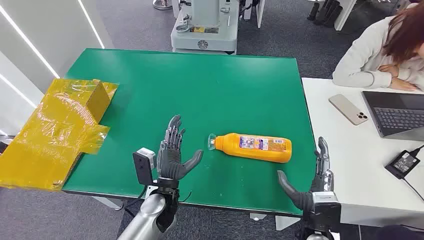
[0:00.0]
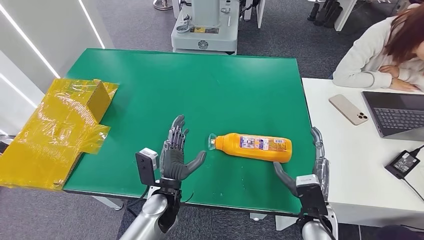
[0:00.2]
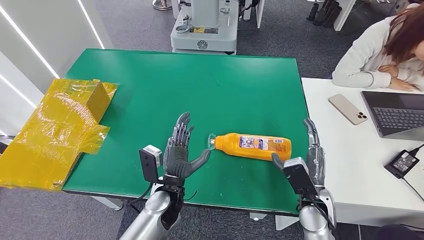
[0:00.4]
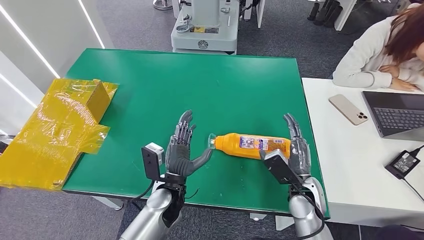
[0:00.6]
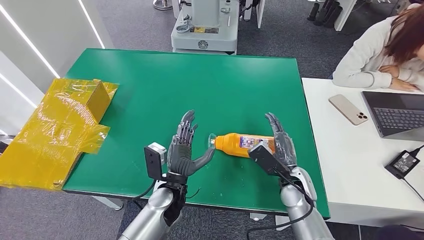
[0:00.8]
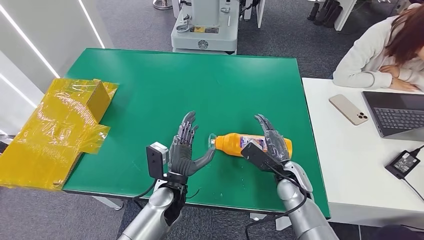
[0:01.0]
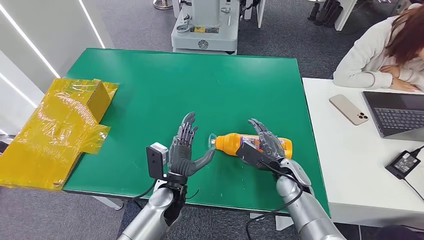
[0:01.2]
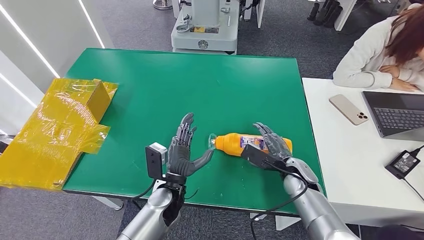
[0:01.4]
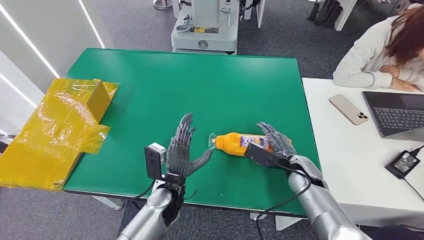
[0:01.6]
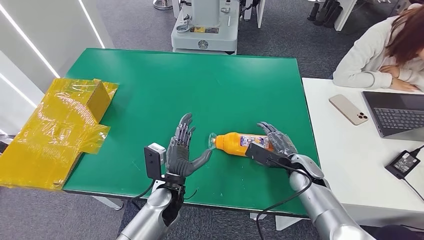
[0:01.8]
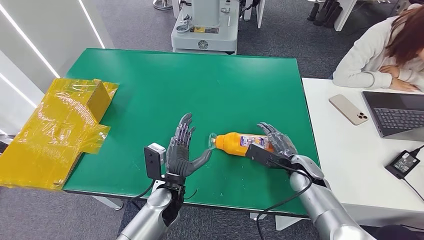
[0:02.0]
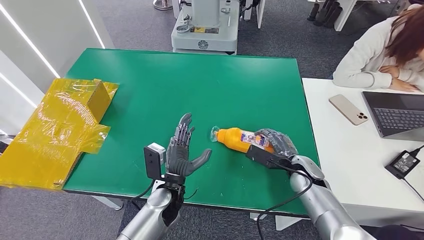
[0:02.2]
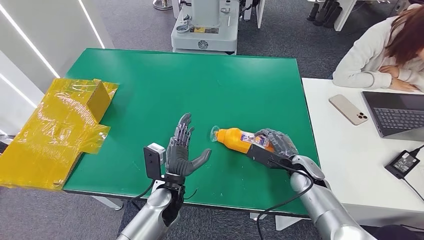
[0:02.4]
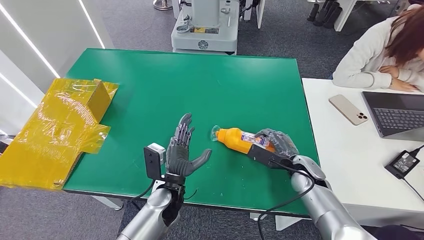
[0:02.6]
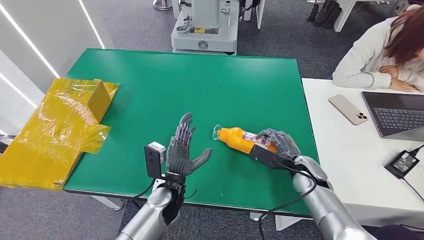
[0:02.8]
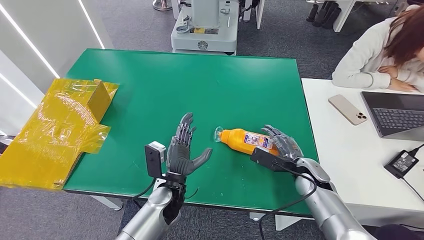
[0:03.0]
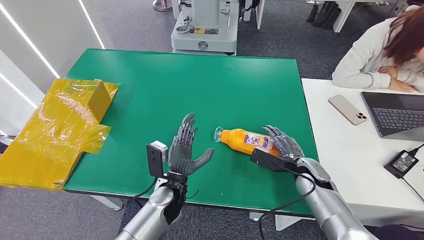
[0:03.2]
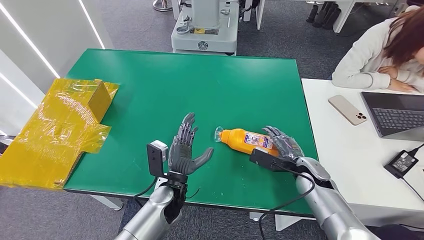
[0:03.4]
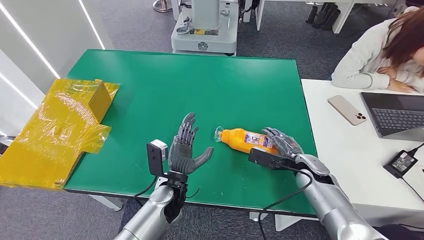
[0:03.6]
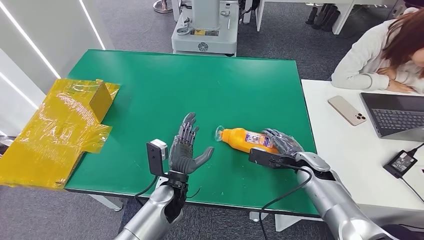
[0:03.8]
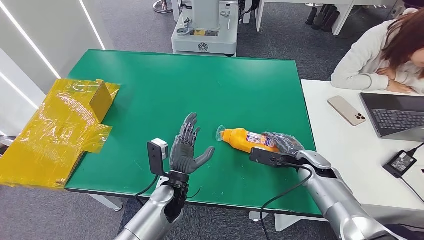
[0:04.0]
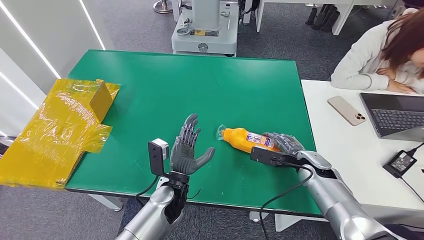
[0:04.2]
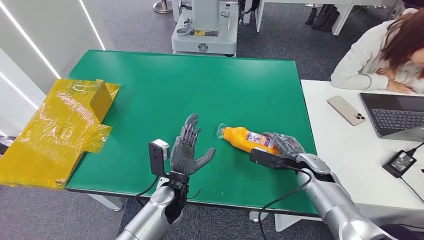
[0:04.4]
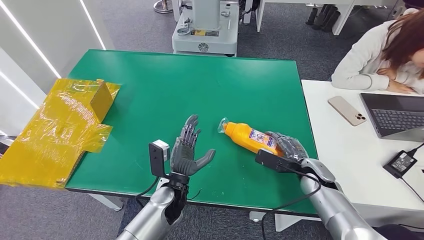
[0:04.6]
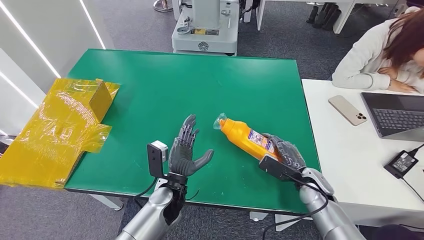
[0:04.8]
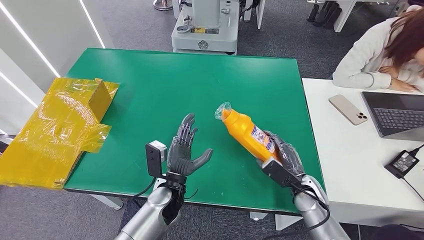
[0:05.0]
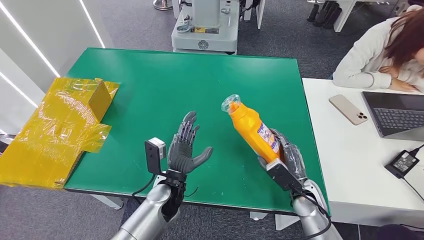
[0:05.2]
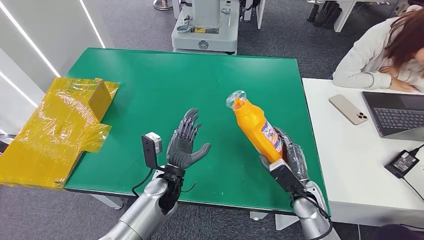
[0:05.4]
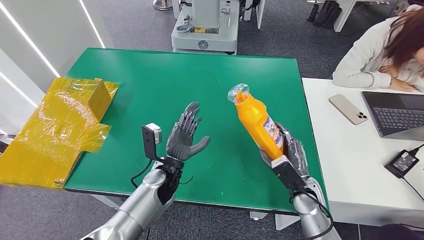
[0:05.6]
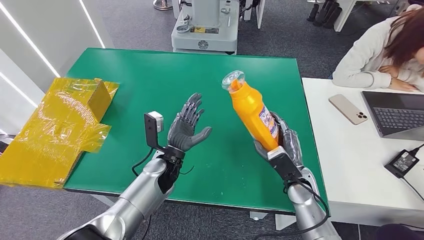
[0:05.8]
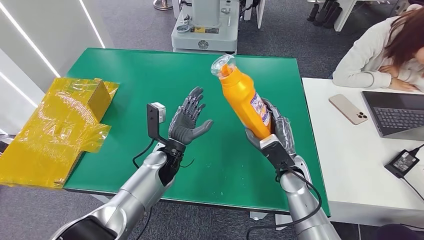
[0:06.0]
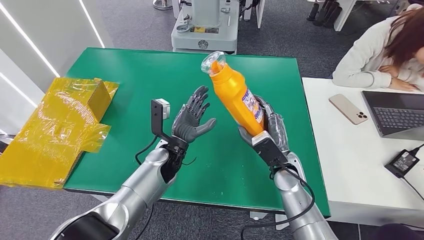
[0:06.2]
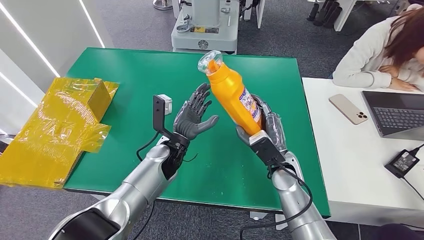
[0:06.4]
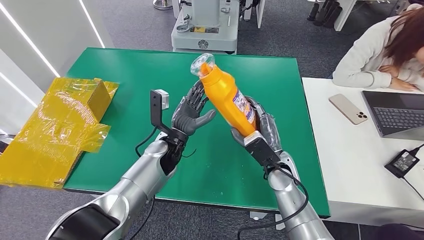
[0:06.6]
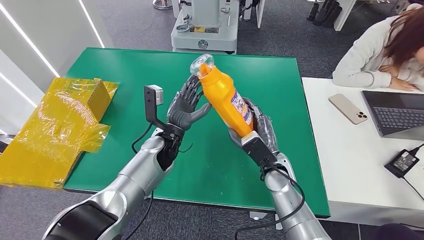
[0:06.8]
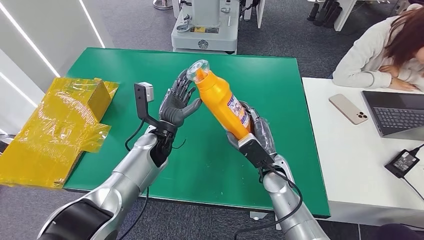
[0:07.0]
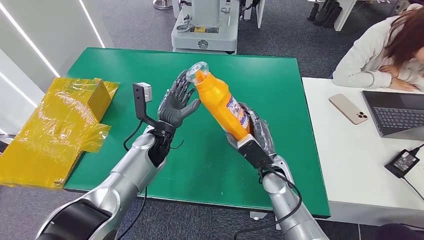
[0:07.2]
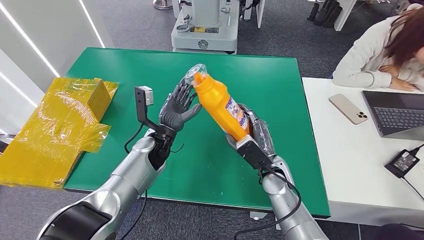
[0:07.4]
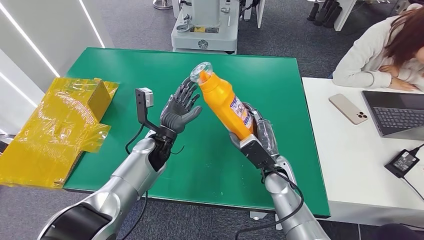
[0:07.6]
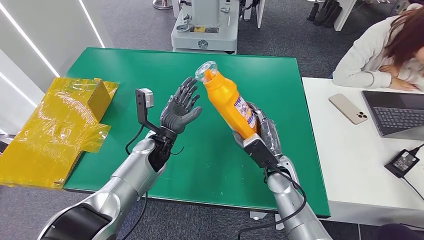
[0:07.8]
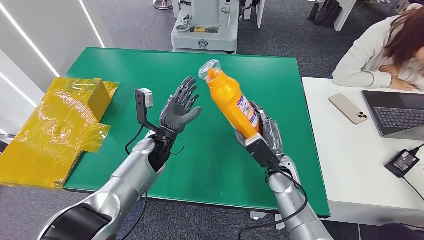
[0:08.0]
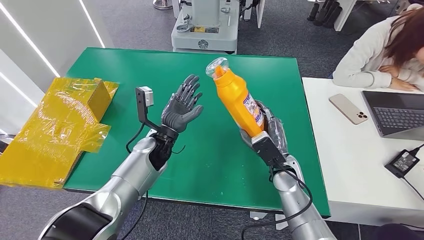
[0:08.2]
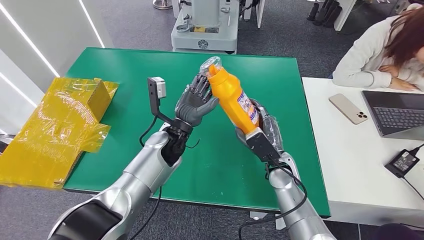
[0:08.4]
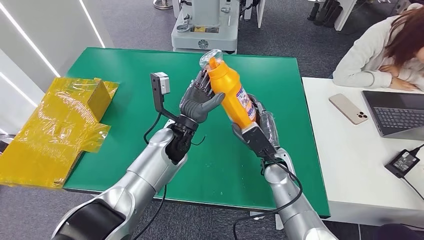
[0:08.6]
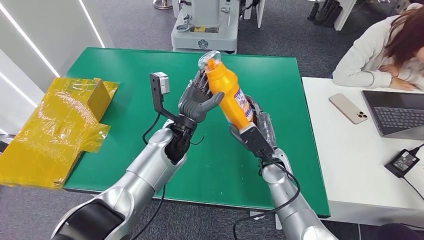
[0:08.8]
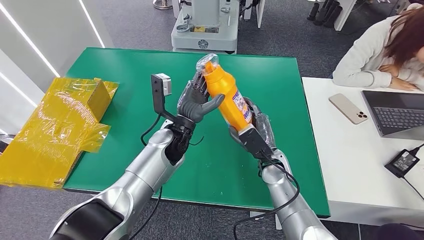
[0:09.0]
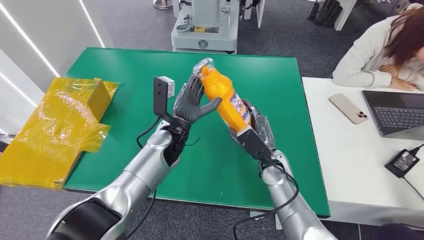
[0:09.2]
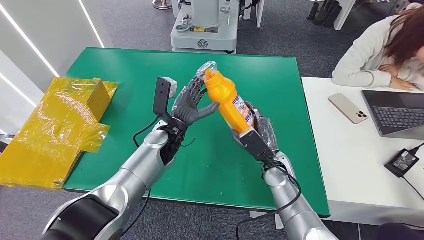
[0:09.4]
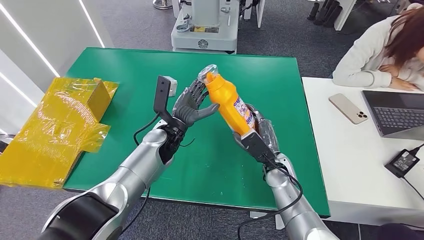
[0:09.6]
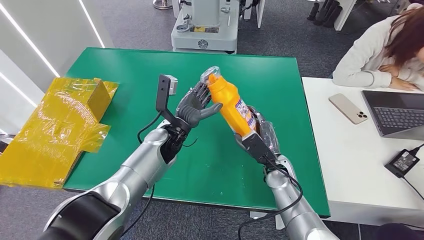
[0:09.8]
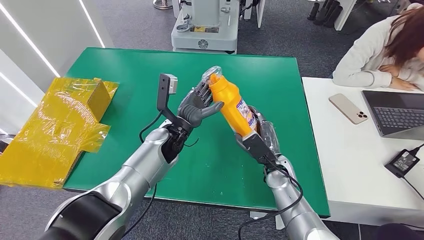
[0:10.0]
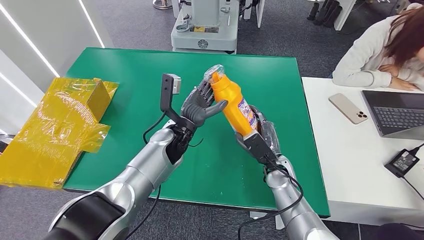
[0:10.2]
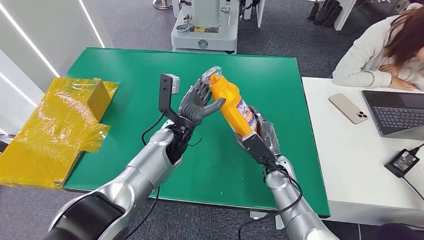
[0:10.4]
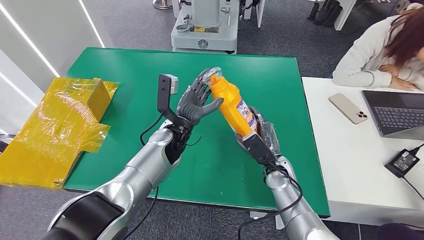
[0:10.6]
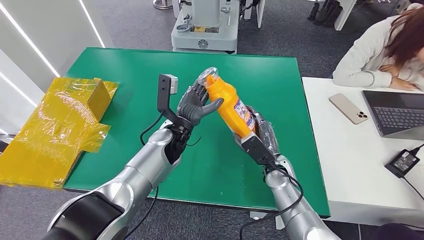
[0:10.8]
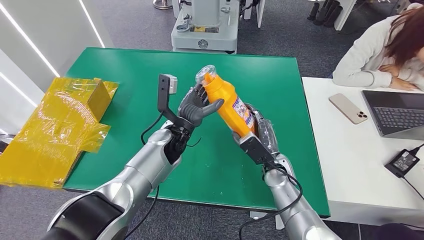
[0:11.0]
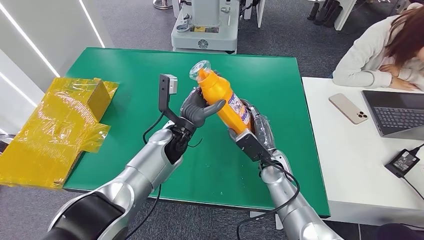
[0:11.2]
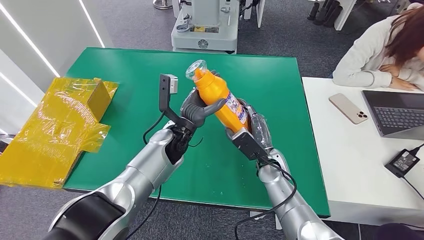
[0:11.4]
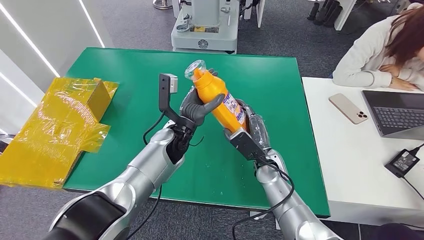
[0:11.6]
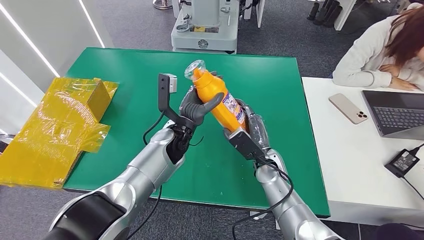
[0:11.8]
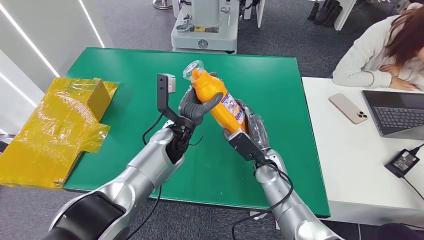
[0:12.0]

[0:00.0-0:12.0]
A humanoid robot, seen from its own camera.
Step, 0:00.0 to 0:06.0: Pick up the bottle from the table.
0:01.6 to 0:03.0: The hands make only small movements.
0:03.0 to 0:04.4: The hands move only a little.
0:06.0 to 0:07.6: The hands make only small movements.
0:07.6 to 0:09.0: The left hand shifts some 5 cm to the right.
0:09.0 to 0:12.0: The hands move only a little.

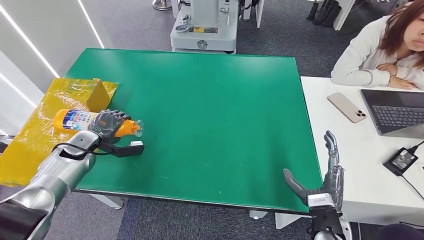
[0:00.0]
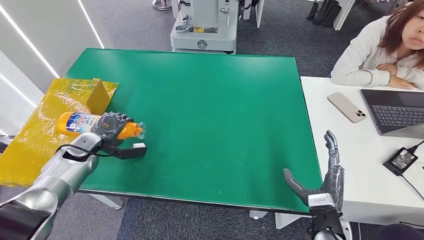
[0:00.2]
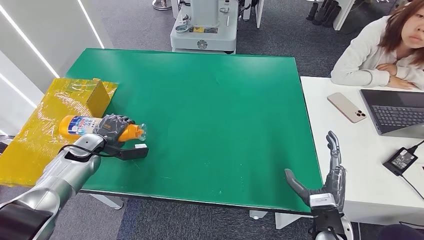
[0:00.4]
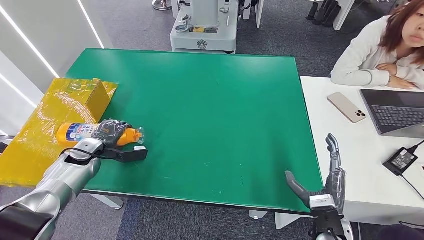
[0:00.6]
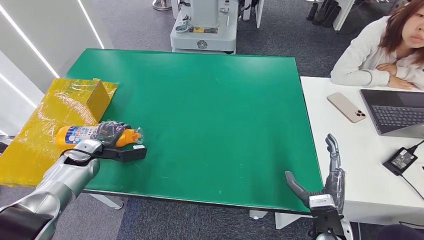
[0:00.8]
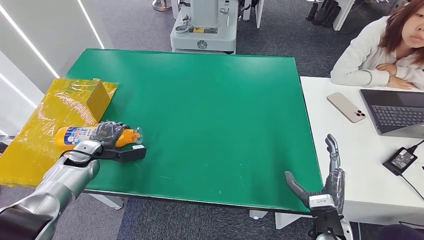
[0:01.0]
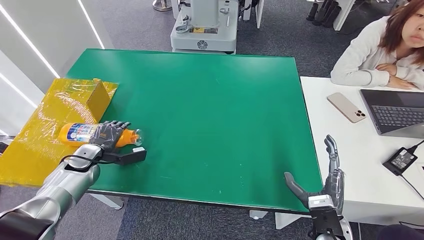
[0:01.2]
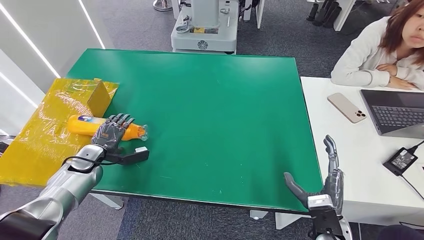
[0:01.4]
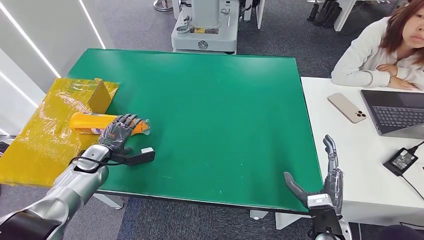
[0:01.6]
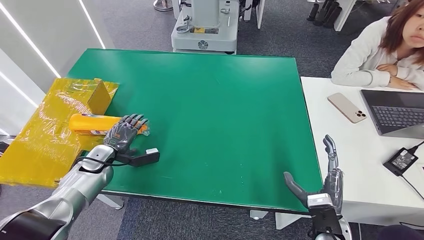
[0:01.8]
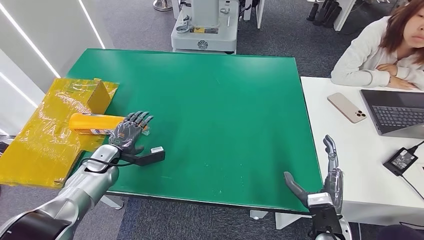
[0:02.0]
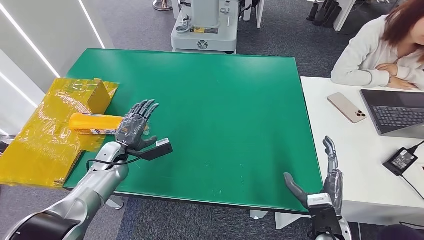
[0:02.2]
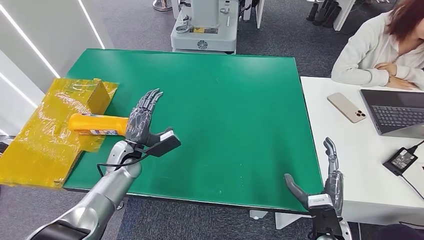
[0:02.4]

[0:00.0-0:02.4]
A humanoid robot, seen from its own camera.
Step, 0:00.0 to 0:02.4: Turn the bottle to the front side.
0:00.0 to 0:01.2: The hands move only a little.
0:01.2 to 0:02.4: The left hand heads to the right, covering about 15 cm.
